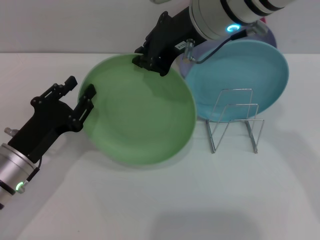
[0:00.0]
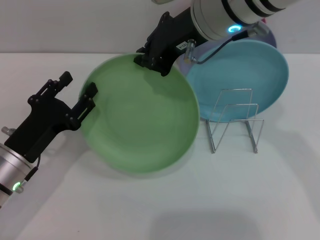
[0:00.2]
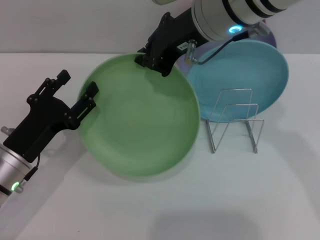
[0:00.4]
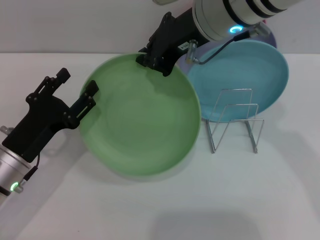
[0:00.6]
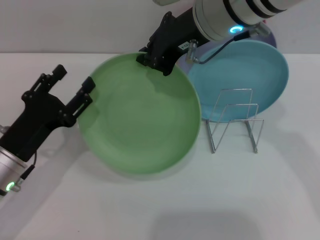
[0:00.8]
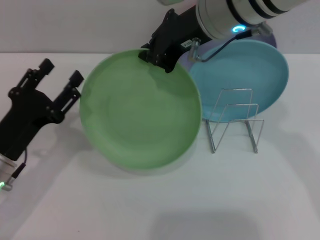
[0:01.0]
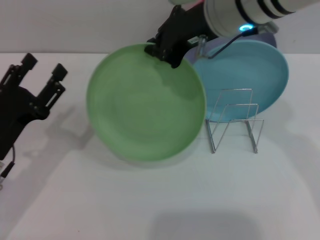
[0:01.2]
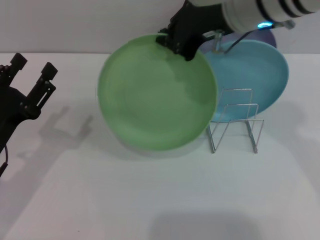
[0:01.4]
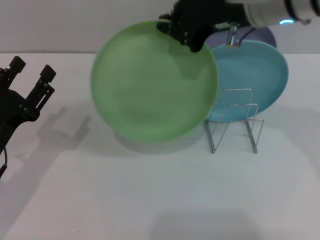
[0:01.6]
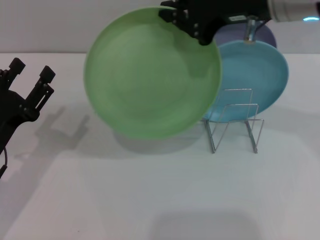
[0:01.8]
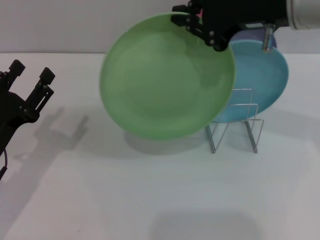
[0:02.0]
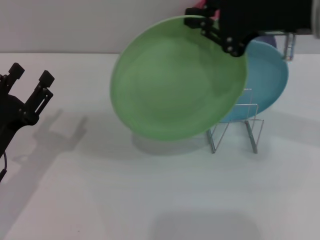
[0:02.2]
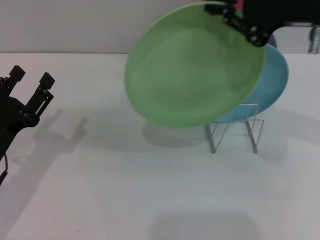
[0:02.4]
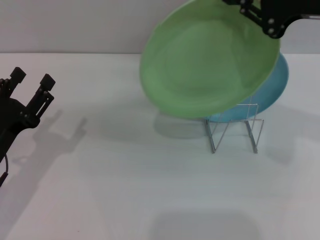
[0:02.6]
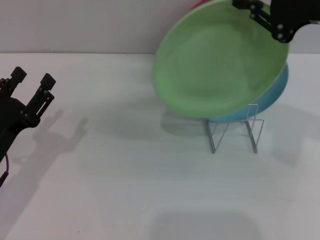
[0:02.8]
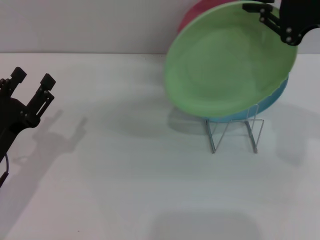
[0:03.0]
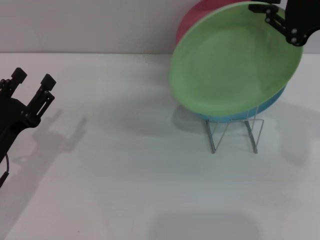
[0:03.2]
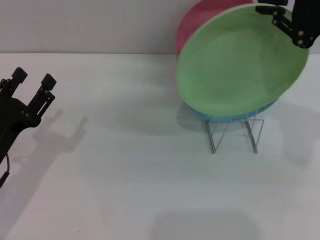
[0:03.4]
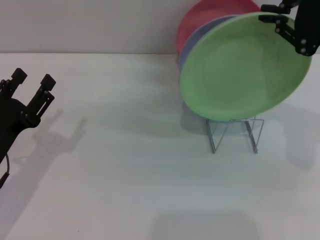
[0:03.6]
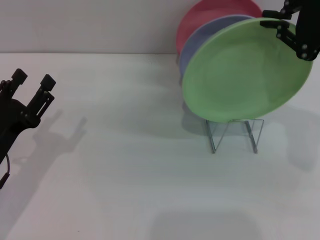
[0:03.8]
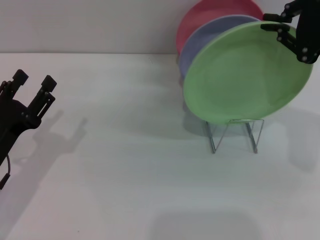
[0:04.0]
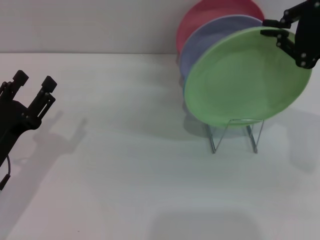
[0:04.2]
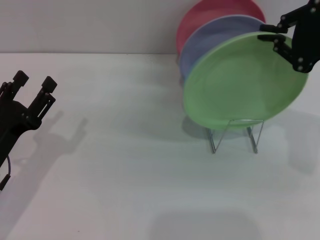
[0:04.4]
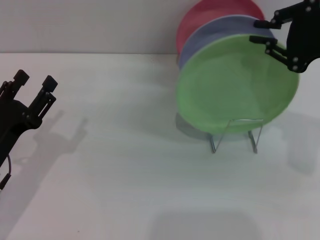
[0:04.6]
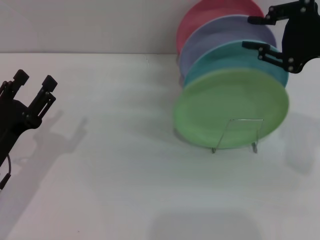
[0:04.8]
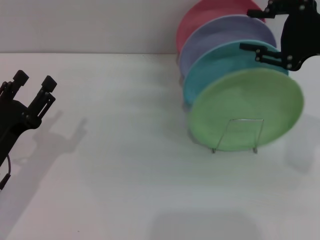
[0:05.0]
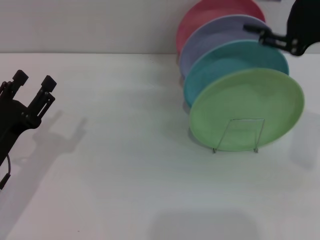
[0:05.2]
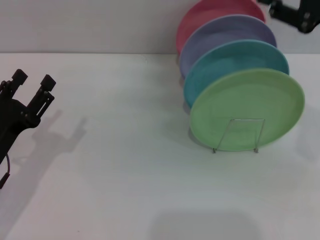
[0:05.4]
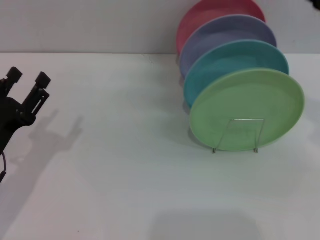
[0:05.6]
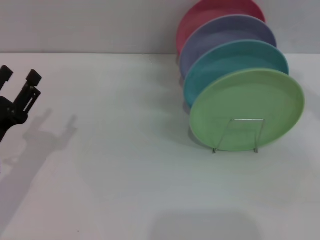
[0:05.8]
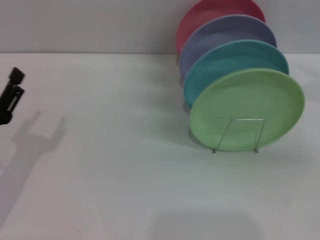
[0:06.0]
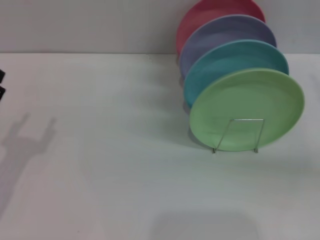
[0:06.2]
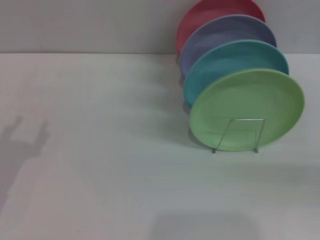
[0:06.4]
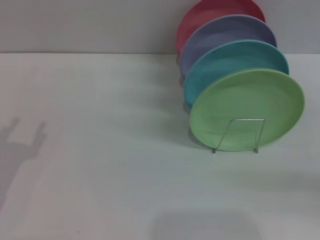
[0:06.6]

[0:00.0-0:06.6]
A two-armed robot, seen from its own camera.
Task of the whole recording: Grip the plate with one hand, pass it to the other, then set it on the shelf.
Step, 0:01.0 to 0:05.0: Place the plate on the shelf with the right gripper.
0:00.0 to 0:01.6: The right gripper is displaced to the right by some 5 cm, while the left gripper opens.
0:01.6 to 0:03.2: The right gripper travels to the right by about 15 cm.
0:03.2 to 0:05.0: The right gripper opens.
0:05.0 to 0:06.6: The left gripper changes place by some 5 cm, while the right gripper heads downward, to the right and backward, covering about 20 cm.

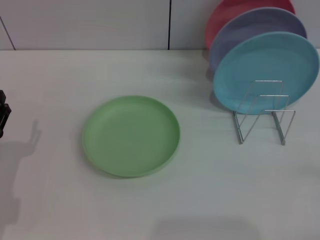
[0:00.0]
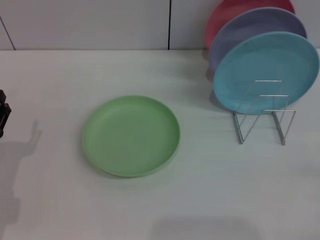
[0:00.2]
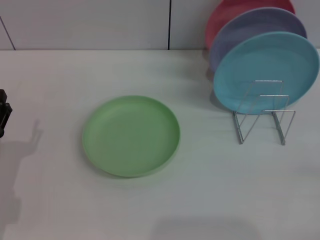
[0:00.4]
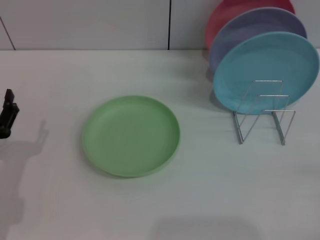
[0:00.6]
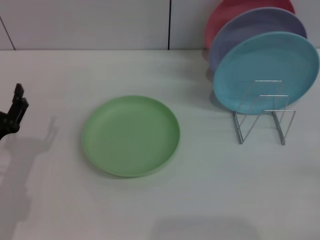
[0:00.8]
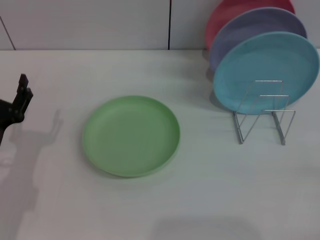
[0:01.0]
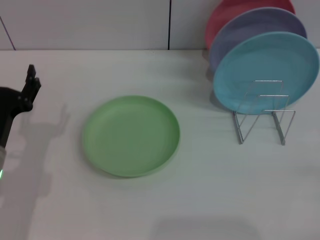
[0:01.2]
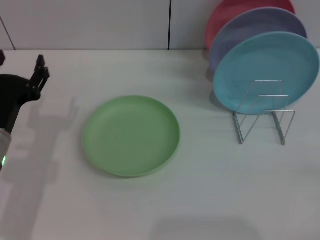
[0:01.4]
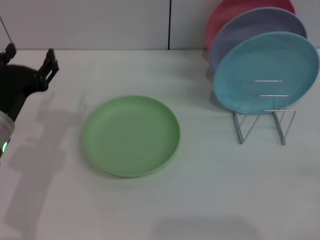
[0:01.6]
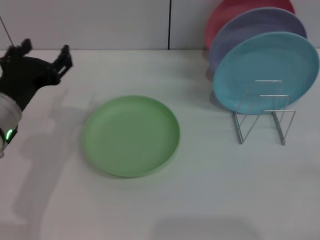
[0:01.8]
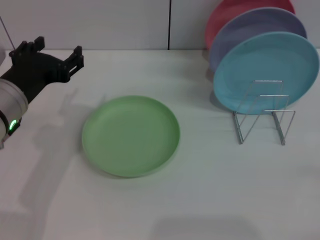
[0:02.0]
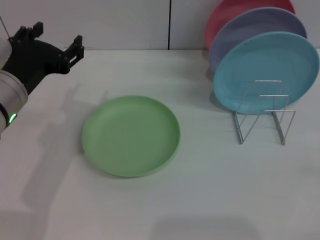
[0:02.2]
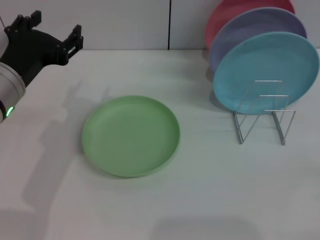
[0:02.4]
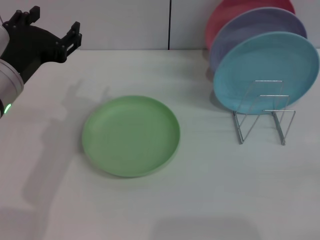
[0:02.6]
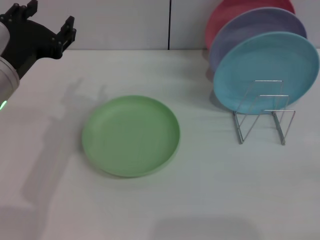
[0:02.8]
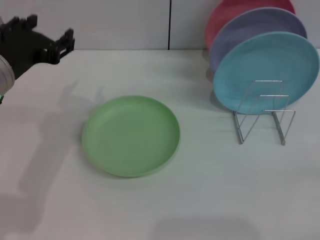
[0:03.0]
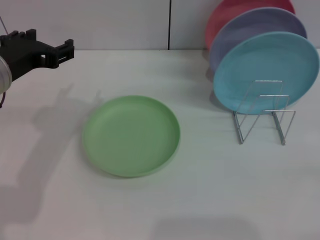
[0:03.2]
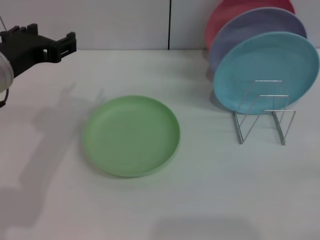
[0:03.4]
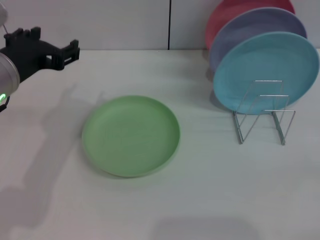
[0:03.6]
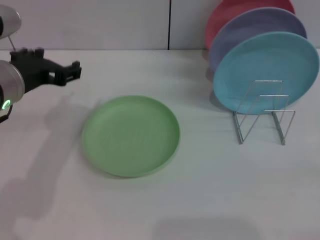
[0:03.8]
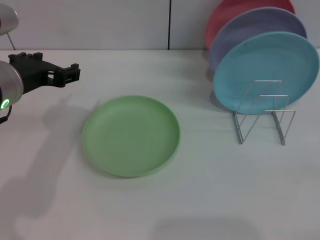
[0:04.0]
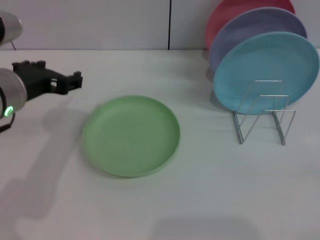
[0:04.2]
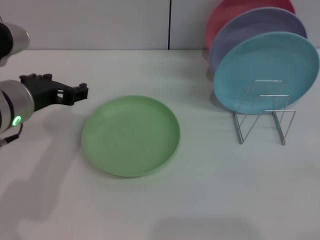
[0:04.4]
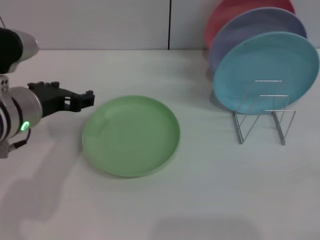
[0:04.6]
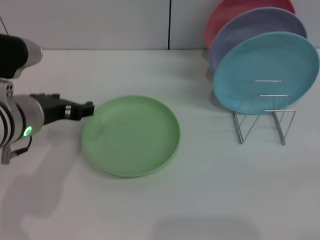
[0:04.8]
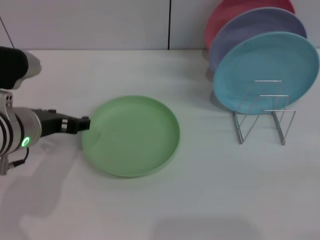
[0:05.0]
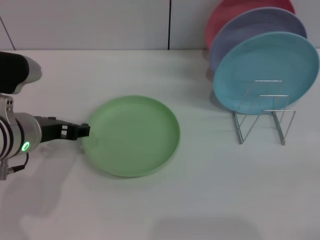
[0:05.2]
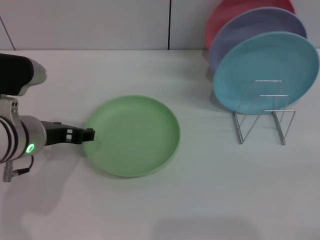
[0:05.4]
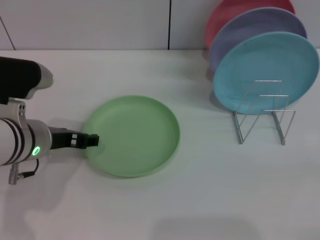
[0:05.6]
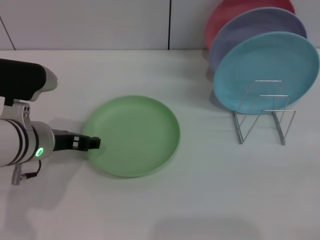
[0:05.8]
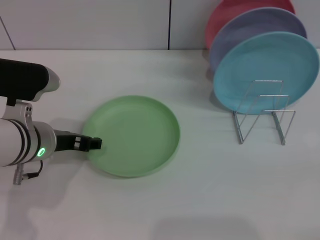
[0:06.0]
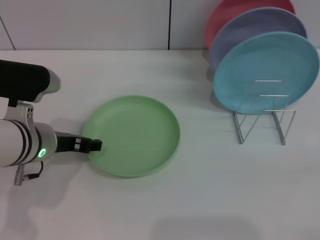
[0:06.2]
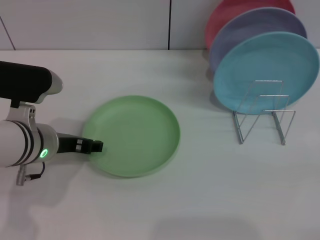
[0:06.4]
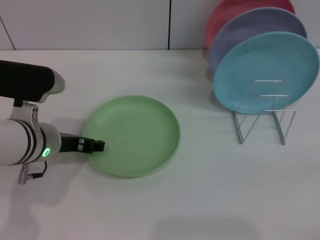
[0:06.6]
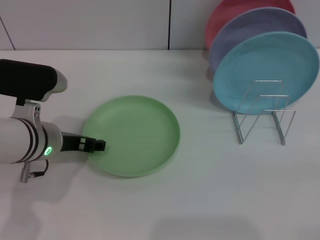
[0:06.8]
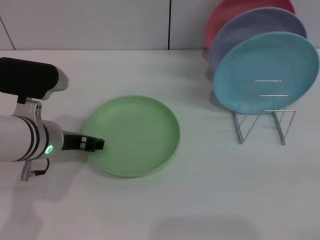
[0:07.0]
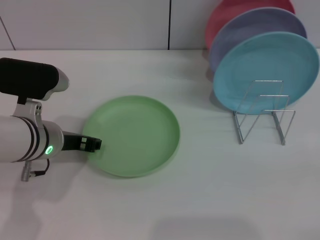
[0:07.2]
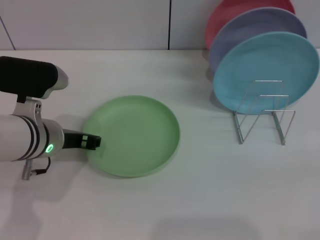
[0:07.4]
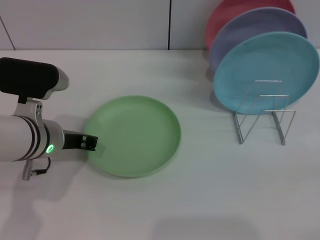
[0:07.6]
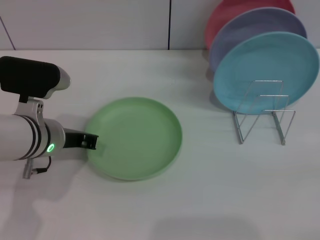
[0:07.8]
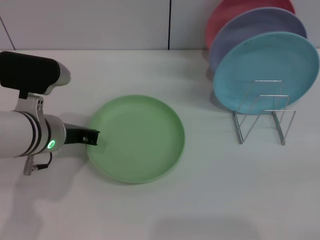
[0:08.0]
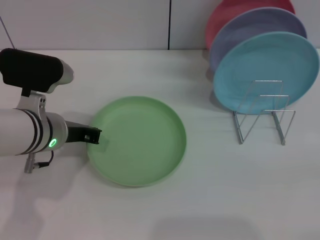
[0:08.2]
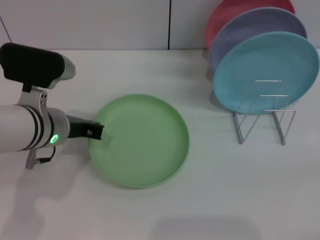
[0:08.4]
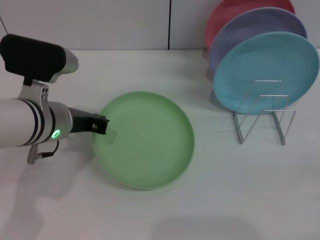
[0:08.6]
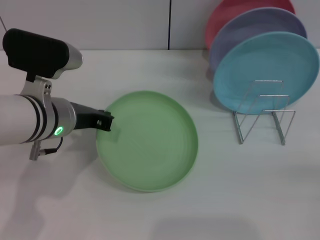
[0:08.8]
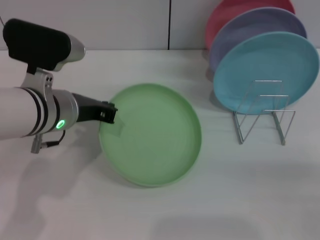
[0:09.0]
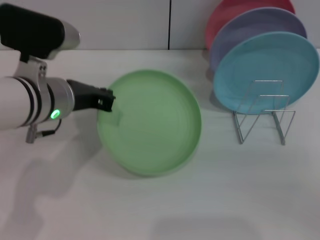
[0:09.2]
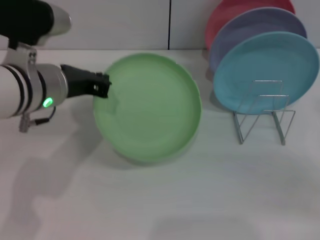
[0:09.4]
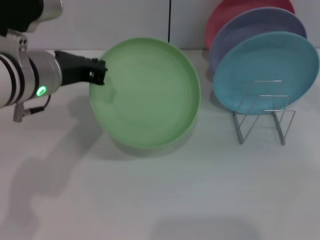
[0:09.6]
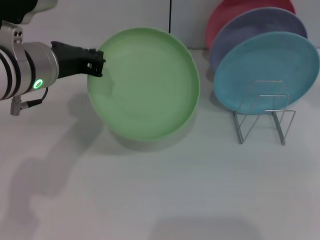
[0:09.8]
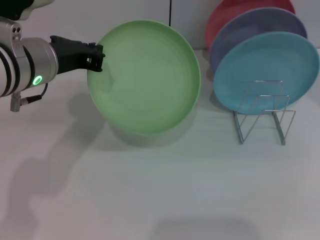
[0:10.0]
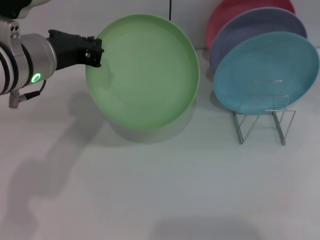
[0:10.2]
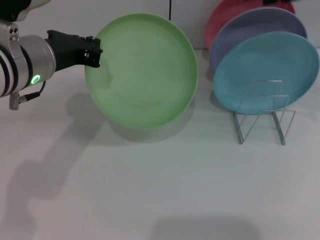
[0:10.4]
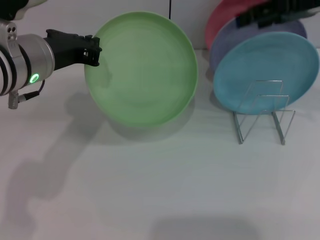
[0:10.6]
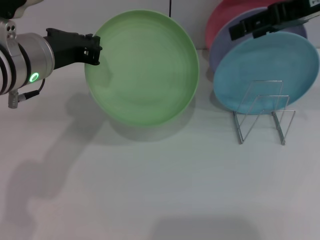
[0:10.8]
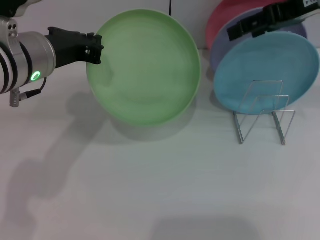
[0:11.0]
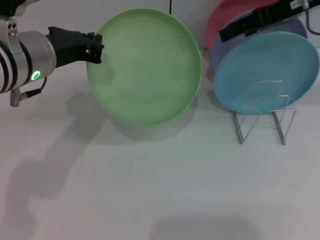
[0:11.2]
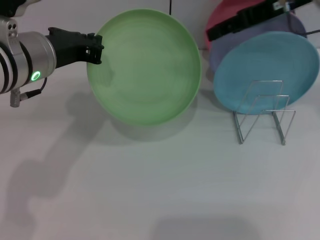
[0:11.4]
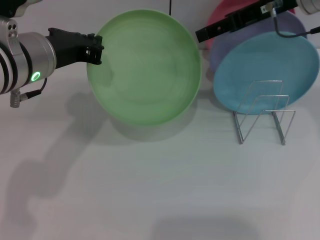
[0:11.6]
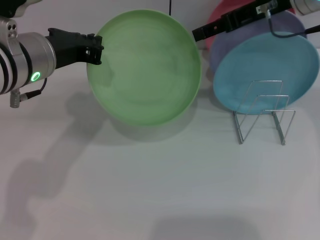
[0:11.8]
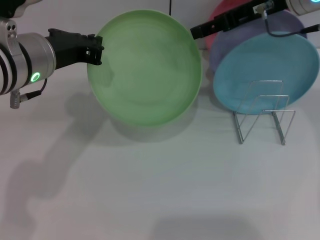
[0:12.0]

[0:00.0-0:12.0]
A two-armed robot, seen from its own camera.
Task of the whole recording: Grip the plate with one hand, pass it to the other, then set it on the shelf.
Step, 0:00.0 to 0:09.6: Pick up the plate with the left gripper.
0:00.0 to 0:01.6: The left gripper heads upward, to the right and forward, covering some 10 cm.
0:01.6 to 0:03.0: The left gripper is displaced upward by roughly 10 cm.
0:04.4 to 0:06.0: The left gripper shifts approximately 5 cm downward.
0:06.0 to 0:07.6: The left gripper closes its fingers.
0:07.6 to 0:09.0: The left gripper shifts by some 5 cm, and closes; the right gripper travels upward by some 5 cm.
0:09.0 to 0:10.4: The right gripper is displaced upward and forward by roughly 30 cm. The left gripper is displaced upward by roughly 5 cm.
0:10.4 to 0:12.0: The right gripper shifts roughly 10 cm to the left.

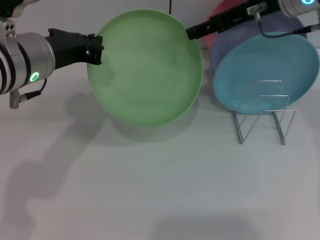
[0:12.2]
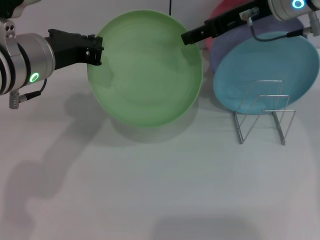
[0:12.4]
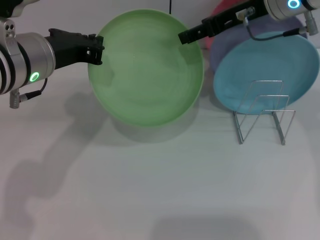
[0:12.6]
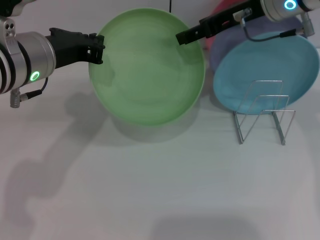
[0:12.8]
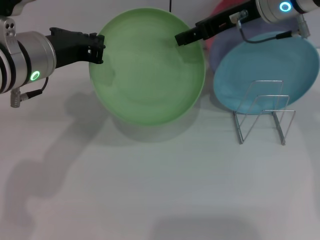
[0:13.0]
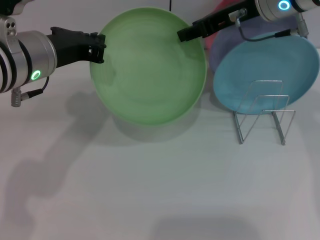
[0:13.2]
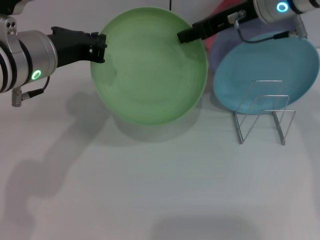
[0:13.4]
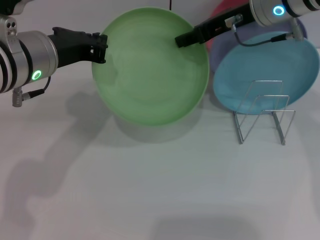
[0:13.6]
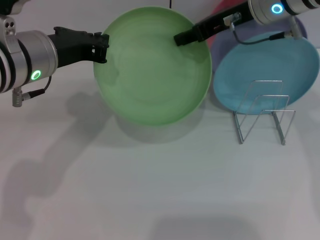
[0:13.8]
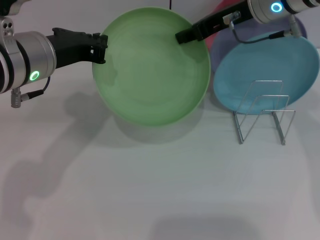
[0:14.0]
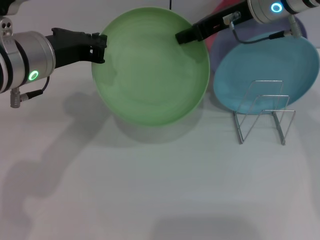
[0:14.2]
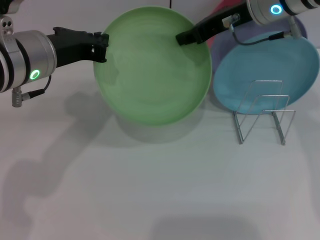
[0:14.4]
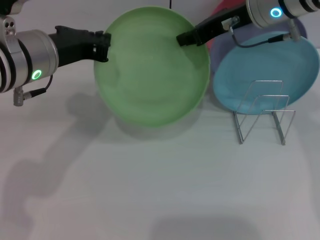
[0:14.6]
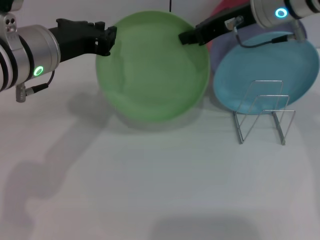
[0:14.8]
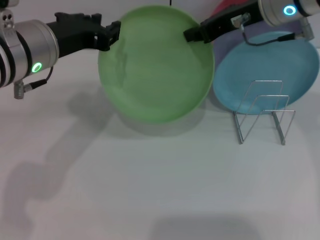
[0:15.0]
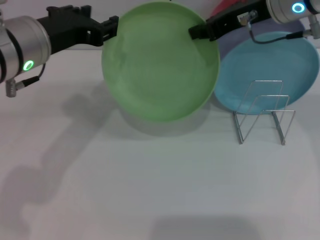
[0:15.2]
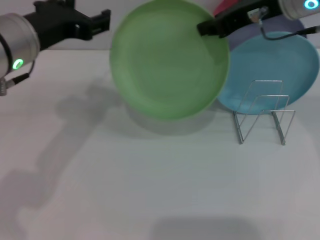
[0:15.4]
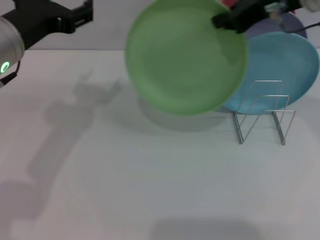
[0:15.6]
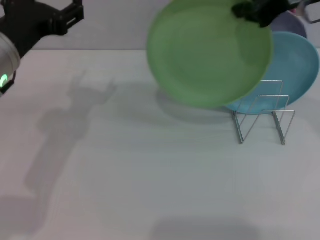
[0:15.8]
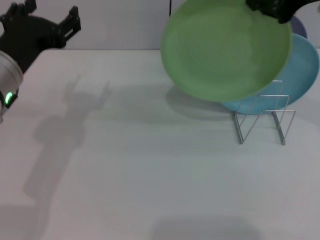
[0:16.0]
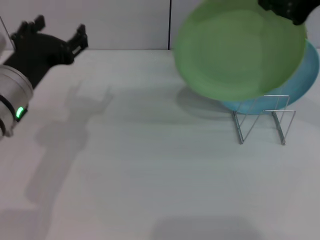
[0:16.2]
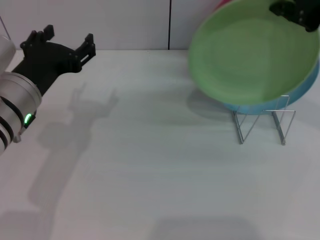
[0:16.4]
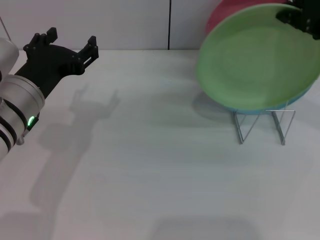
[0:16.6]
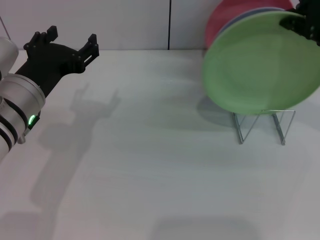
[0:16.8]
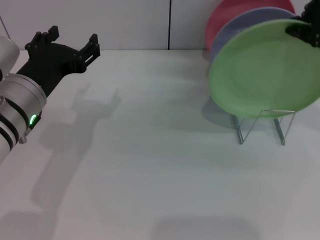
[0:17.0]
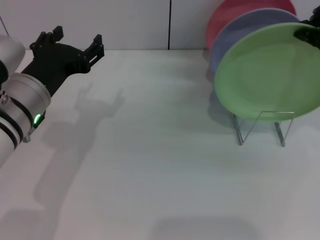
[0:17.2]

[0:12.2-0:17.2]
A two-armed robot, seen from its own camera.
Task of the whole recording: Grip the plate with one hand, pass it to the other, then set it on the shelf.
Step, 0:12.2 to 0:15.6: Pass the plate from the left gripper to the right gripper.
0:12.2 to 0:13.8: The right gripper closes up.
0:13.8 to 0:15.6: The left gripper opens up; the right gripper moves approximately 5 cm, and closes its fingers.
0:15.6 to 0:17.2: The right gripper heads to the right and backward, covering roughly 10 cm. Meanwhile the left gripper travels downward by about 5 cm.
